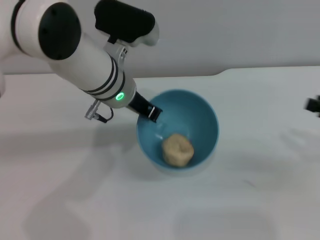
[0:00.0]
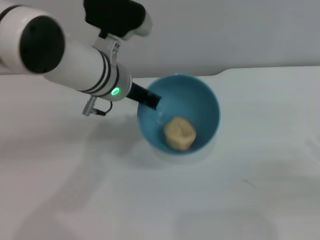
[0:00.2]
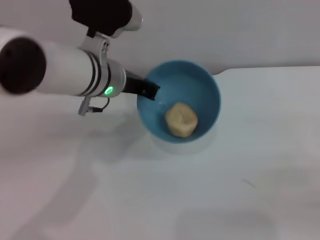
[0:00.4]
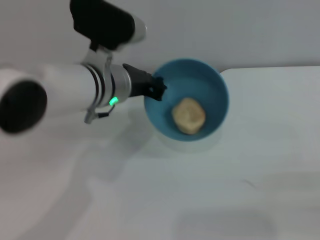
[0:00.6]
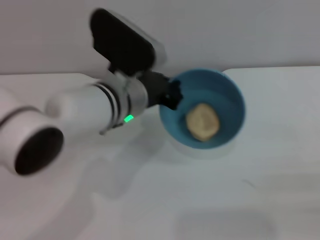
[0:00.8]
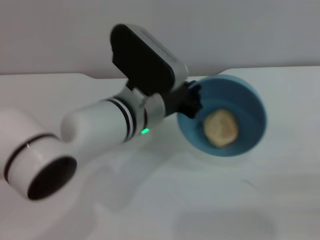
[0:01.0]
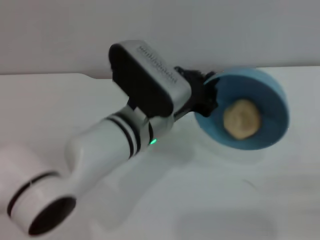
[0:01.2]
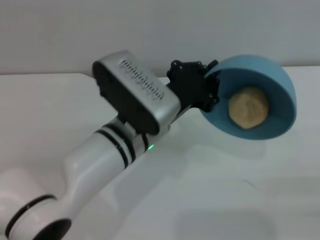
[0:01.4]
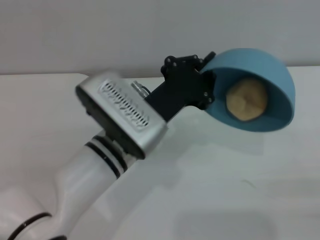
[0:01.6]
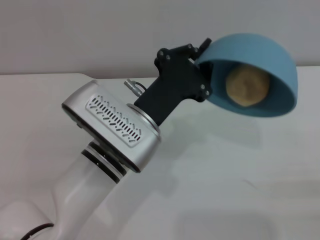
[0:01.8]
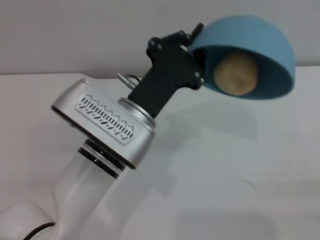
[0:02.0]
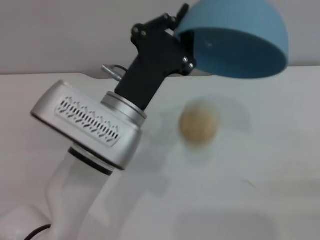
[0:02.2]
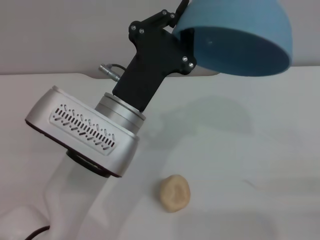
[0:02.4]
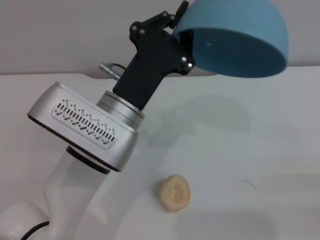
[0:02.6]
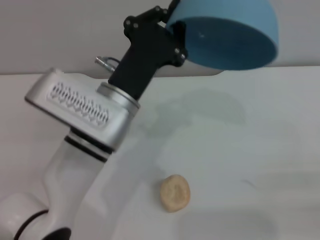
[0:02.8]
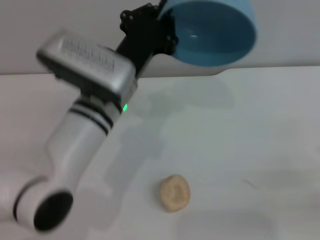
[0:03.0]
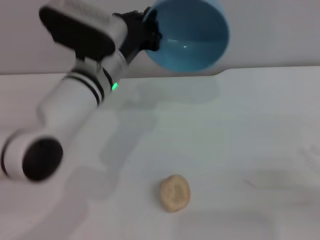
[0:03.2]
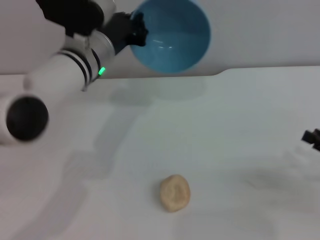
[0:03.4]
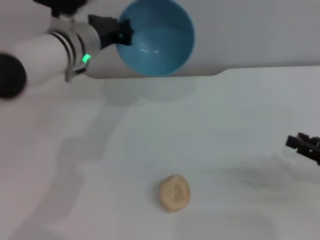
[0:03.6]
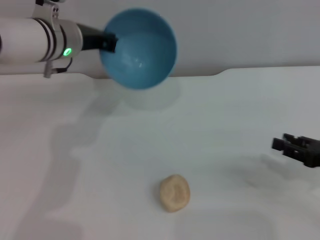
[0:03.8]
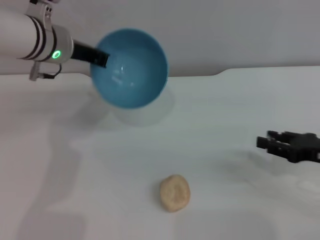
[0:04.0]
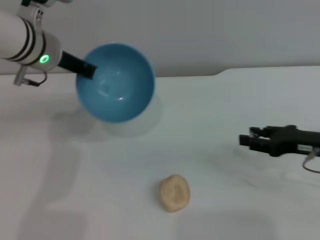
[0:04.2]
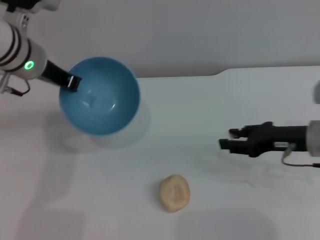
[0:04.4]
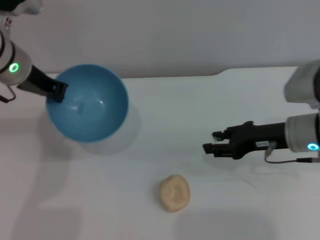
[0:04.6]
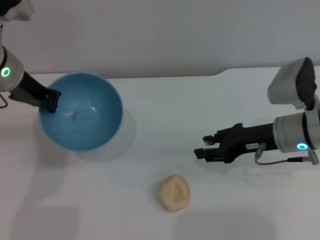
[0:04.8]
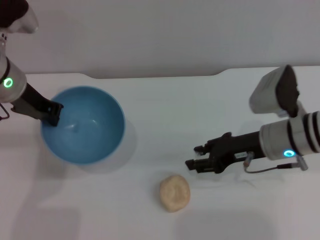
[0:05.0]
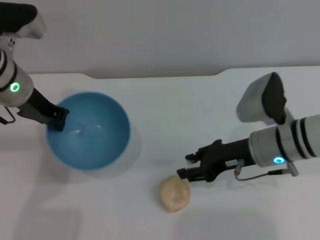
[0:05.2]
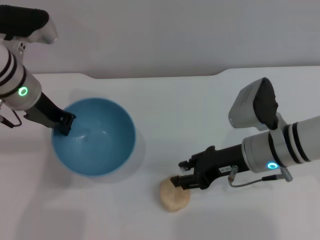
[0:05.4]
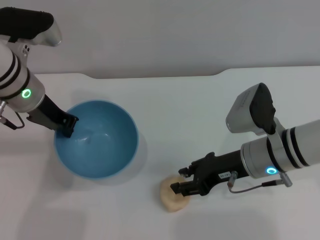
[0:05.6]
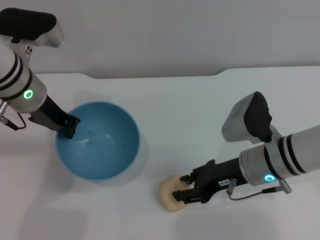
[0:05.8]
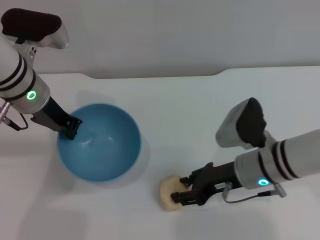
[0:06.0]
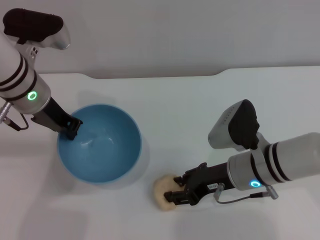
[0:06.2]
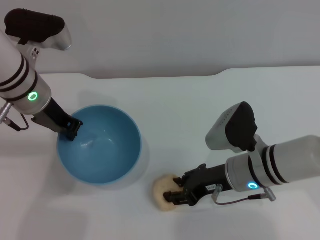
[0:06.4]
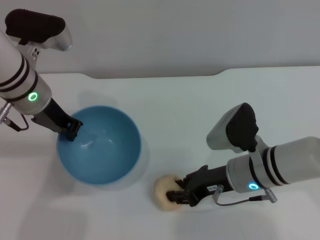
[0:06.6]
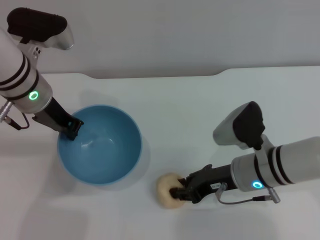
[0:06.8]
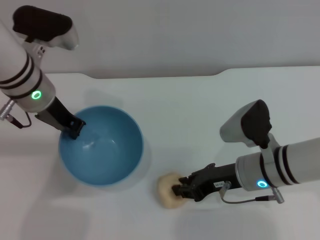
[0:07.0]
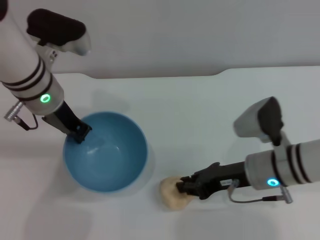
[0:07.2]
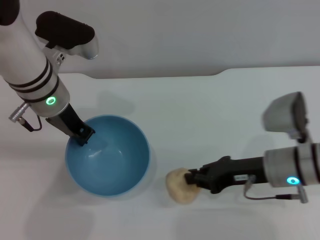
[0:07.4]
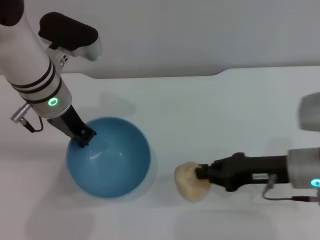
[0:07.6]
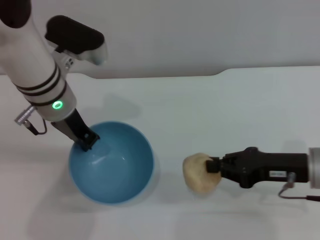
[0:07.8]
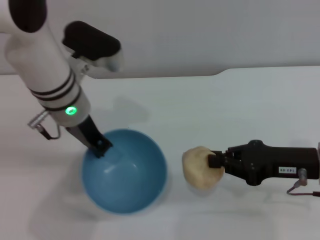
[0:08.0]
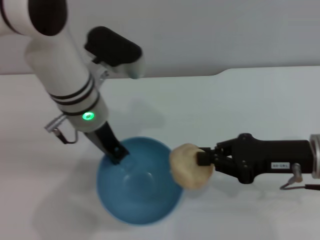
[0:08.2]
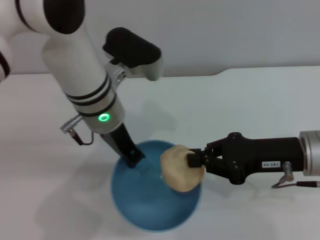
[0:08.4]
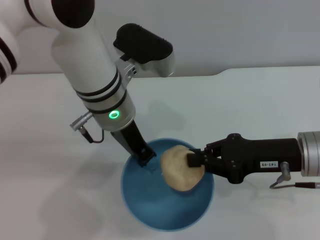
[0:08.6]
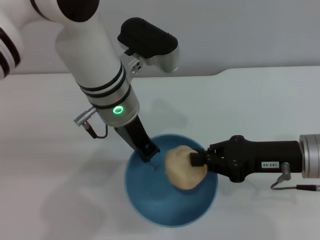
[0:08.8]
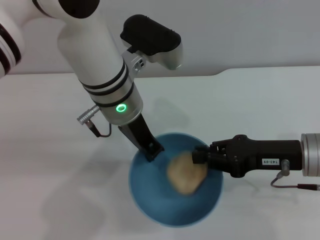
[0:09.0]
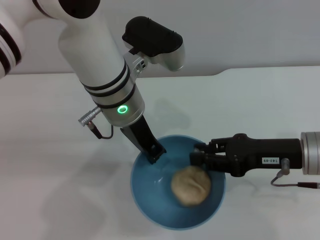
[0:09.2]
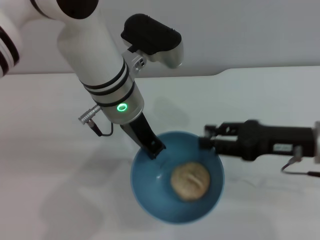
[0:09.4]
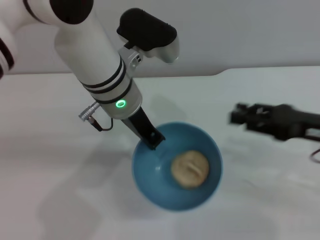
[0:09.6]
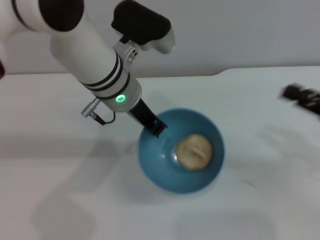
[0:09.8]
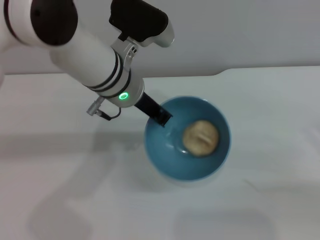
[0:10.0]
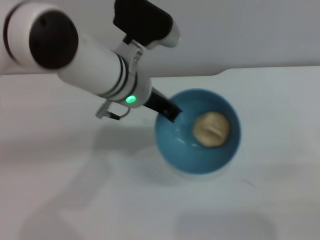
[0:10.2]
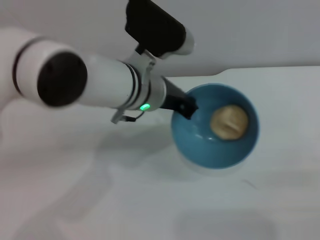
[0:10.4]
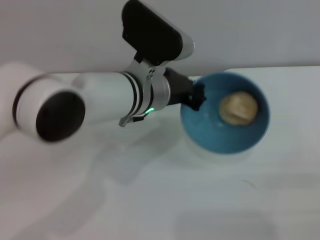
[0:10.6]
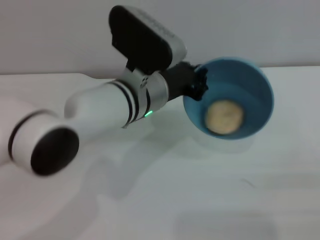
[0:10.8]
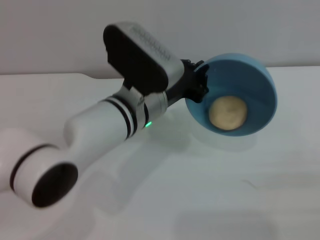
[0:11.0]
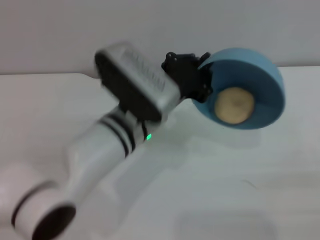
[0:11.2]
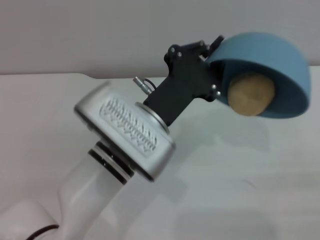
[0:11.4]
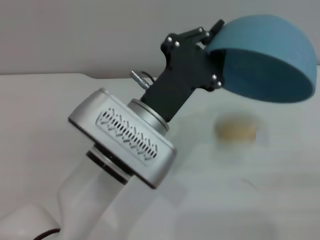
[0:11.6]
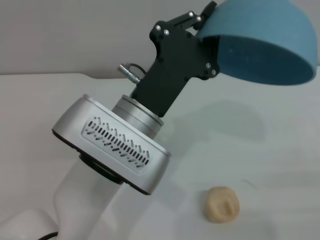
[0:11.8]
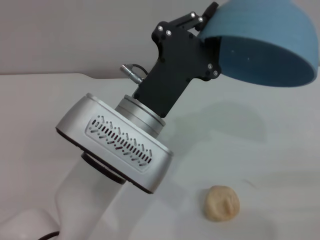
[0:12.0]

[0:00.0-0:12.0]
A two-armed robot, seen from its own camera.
Task of the whole recording: put the egg yolk pastry into the blue bowl and pour it out repeatedly.
Step, 0:00.0 to 0:02.2: Pour the egg yolk pastry out of bowl.
Step, 0:02.4 to 0:07.8: Pick up the egg yolk pastry with the right gripper.
Step, 0:08.2 to 0:09.2: Place the egg yolk pastry into the bowl.
Step, 0:09.6 to 0:11.8: Pour the egg yolk pastry out of bowl.
0:00.0 to 0:01.6: The left gripper shifts some 10 cm backward and downward. Meanwhile the right gripper shifts some 10 cm backward.
0:01.6 to 0:03.0: The left gripper shifts by some 5 cm.
0:03.0 to 0:04.4: The right gripper is displaced to the left and forward by about 20 cm; the left gripper moves to the left, forward and upward, about 15 cm.
0:04.4 to 0:06.0: The right gripper goes some 10 cm to the left.
0:06.0 to 0:07.6: The right gripper heads to the right, covering some 5 cm, and closes.
0:07.6 to 0:09.0: The left gripper shifts about 10 cm to the right.
0:09.0 to 0:10.4: The right gripper heads to the right and backward, covering roughly 20 cm, and opens its fingers.
0:10.4 to 0:12.0: The left gripper heads backward, covering some 10 cm.

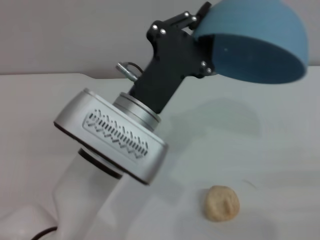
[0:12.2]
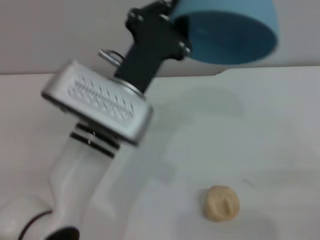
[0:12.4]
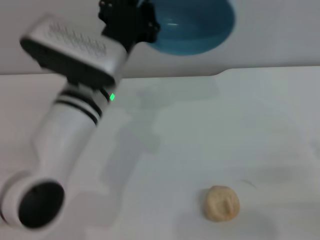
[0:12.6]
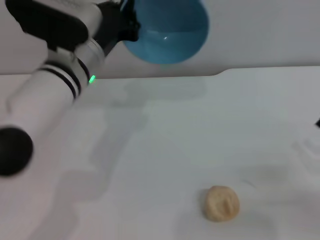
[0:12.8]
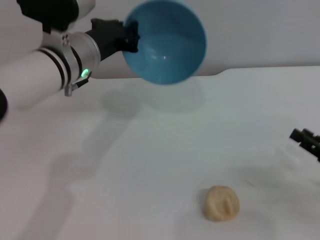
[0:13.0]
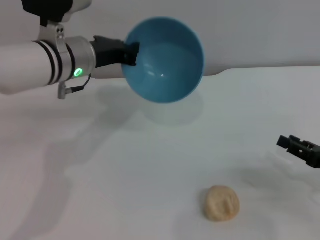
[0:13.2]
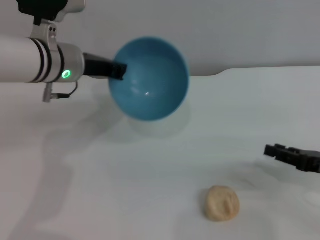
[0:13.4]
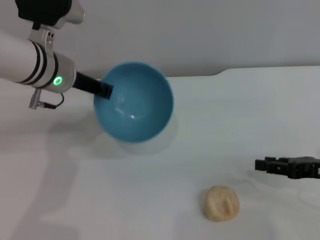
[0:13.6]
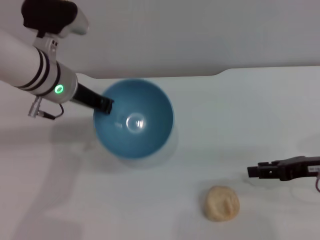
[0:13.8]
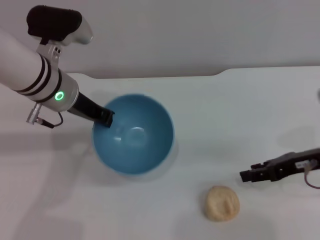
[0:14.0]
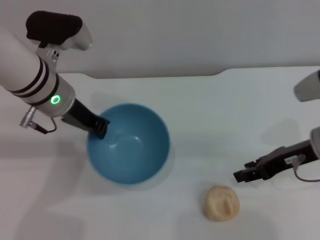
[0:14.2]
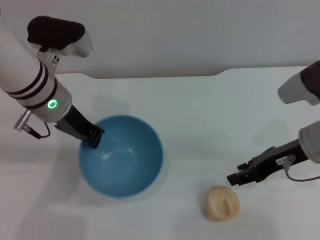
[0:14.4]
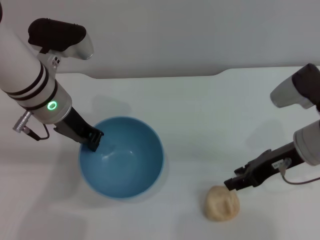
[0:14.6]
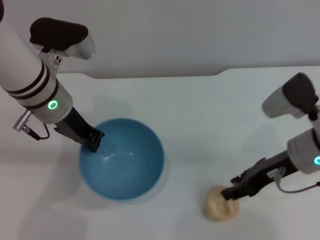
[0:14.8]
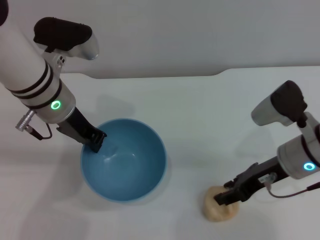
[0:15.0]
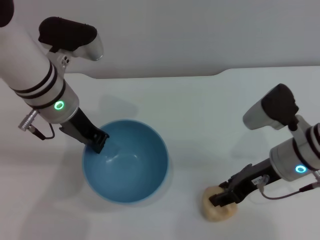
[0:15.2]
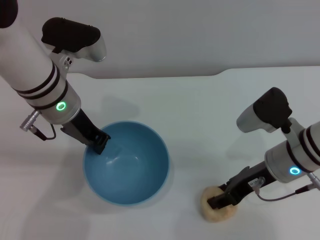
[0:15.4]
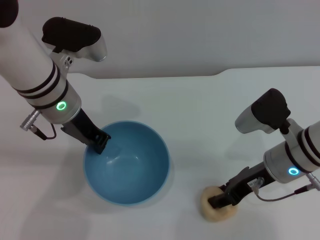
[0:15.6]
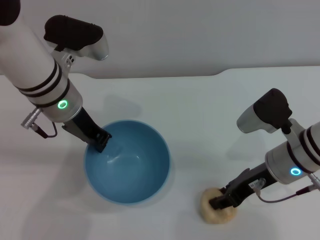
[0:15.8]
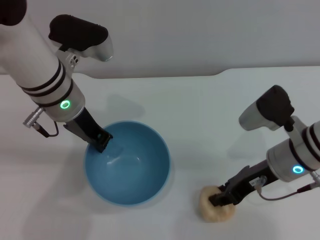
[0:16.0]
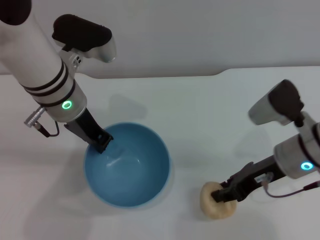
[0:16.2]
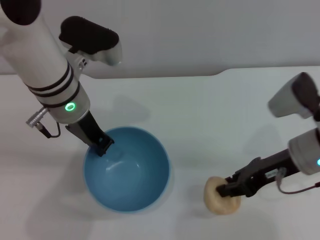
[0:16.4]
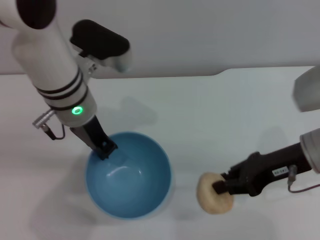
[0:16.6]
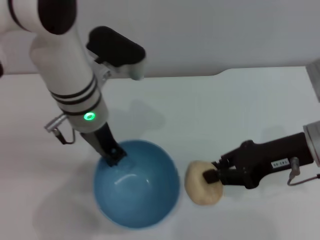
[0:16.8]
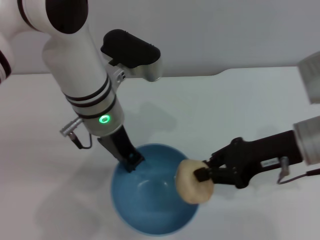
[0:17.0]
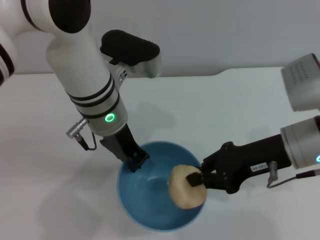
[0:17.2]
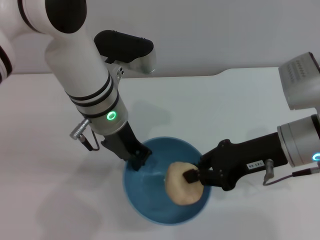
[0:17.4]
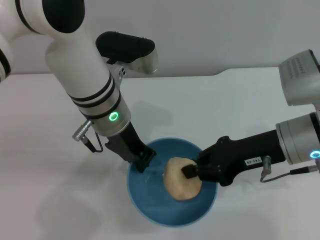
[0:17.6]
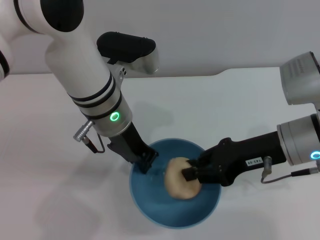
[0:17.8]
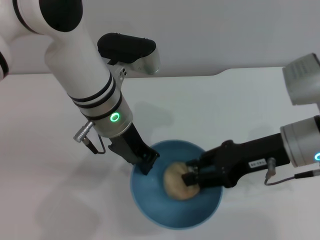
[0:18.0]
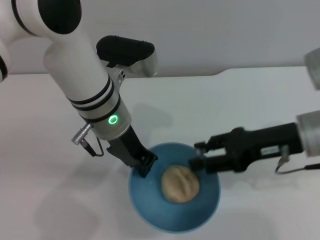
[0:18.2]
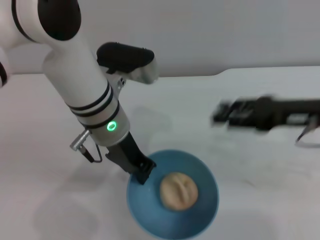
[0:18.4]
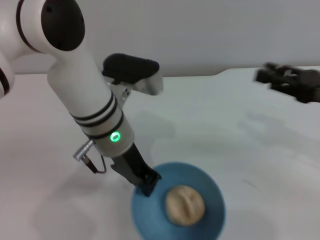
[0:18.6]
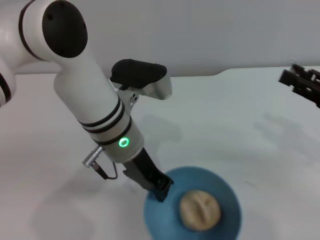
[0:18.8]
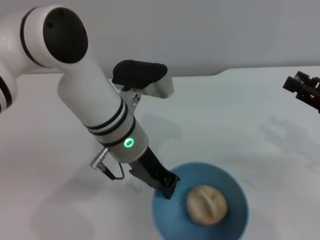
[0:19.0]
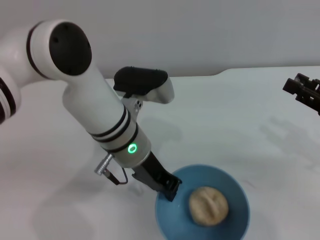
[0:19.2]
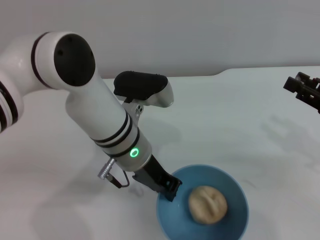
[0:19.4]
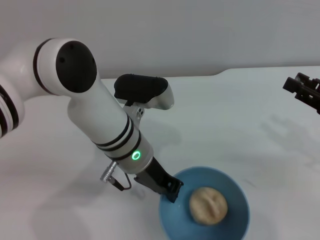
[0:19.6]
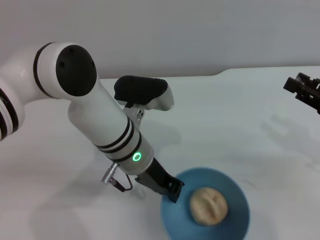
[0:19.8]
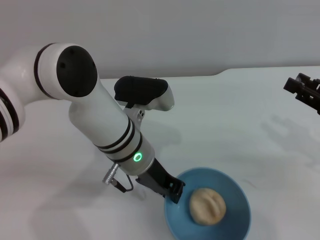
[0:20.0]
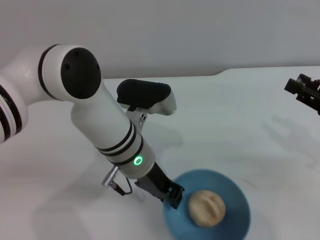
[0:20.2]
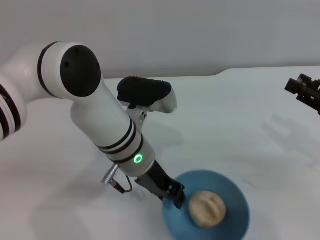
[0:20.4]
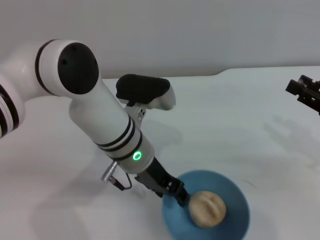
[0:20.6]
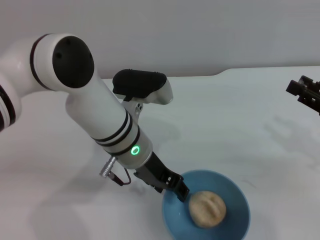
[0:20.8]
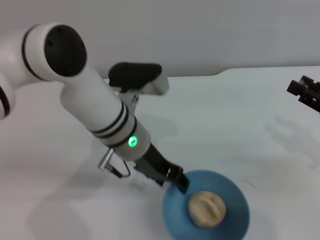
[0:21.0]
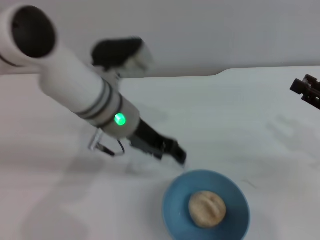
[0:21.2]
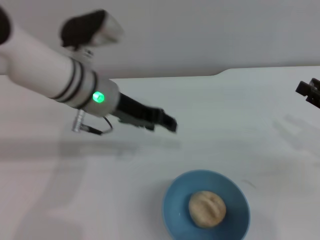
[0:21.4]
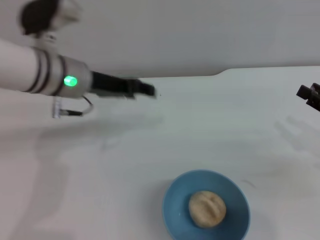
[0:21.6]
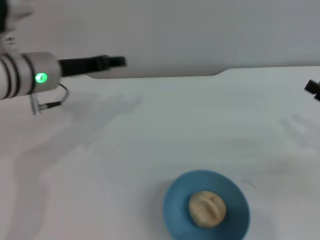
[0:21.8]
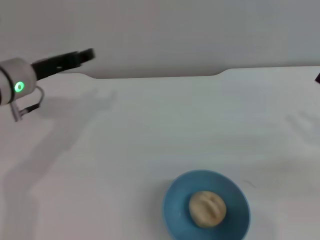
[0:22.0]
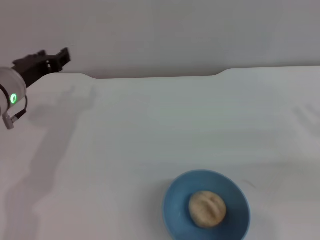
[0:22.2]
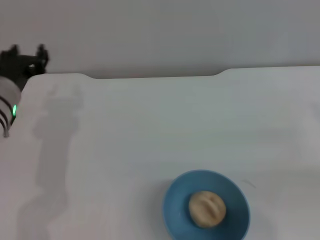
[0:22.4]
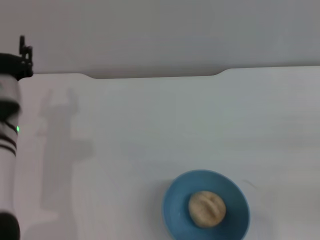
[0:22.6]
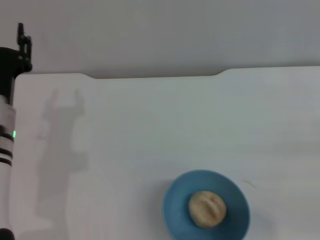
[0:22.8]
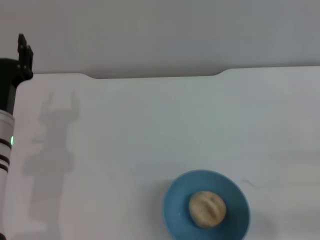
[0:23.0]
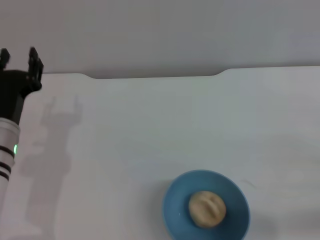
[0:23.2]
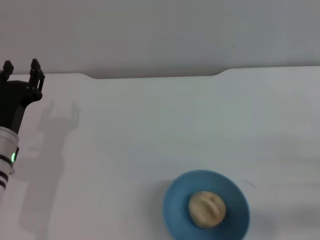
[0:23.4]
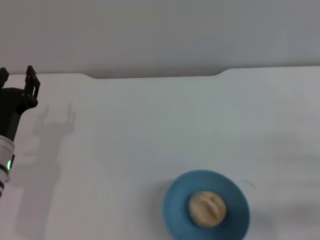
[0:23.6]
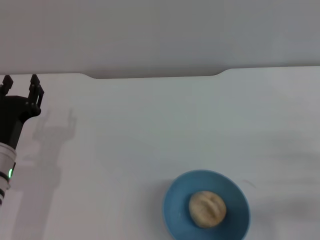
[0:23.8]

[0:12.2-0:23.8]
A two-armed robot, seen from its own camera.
Task of the whole recording: put the egg yolk pastry into the blue bowl and pour it out repeatedly.
Step, 0:12.2 to 0:16.4: Pick up the egg yolk pastry with the right gripper.
Step, 0:16.6 to 0:18.2: Place the egg yolk pastry into the bowl.
Step, 0:18.4 to 0:21.2: Place the bowl on the table.
0:12.2 to 0:13.6: Both grippers move forward and to the left, approximately 15 cm.
0:13.6 to 0:15.0: The right gripper travels to the left by some 10 cm.
0:15.0 to 0:16.6: The right gripper closes its fingers.
0:18.0 to 0:19.4: The right gripper is displaced to the right by about 15 cm, and opens its fingers, while the left gripper changes place by roughly 5 cm.
0:19.4 to 0:21.0: The left gripper opens up.
0:21.0 to 0:22.4: The left gripper shifts about 15 cm to the left.
0:22.4 to 0:23.8: The left gripper shifts some 10 cm backward and downward.
